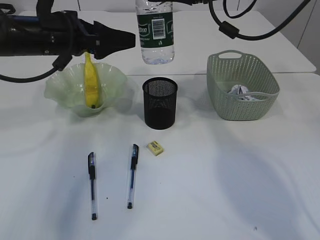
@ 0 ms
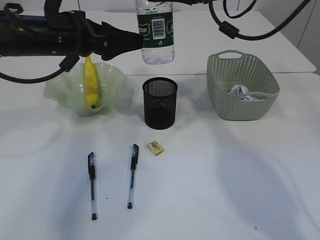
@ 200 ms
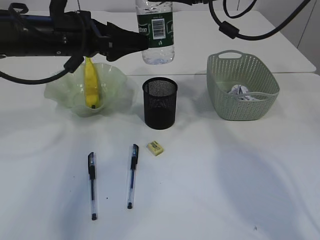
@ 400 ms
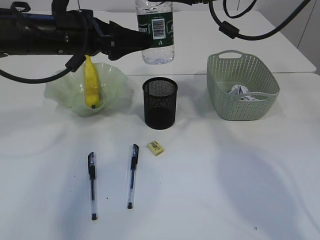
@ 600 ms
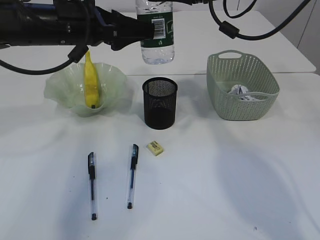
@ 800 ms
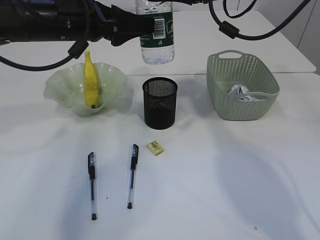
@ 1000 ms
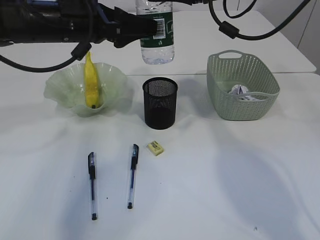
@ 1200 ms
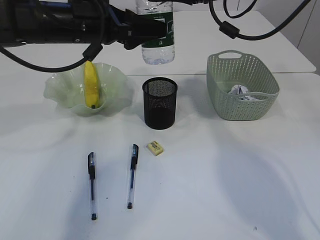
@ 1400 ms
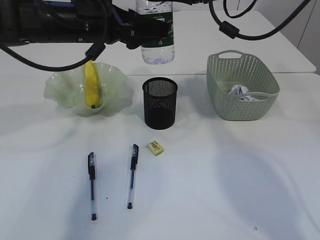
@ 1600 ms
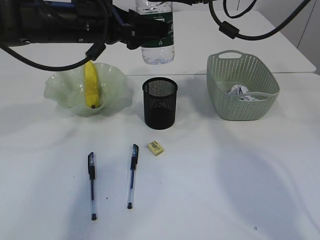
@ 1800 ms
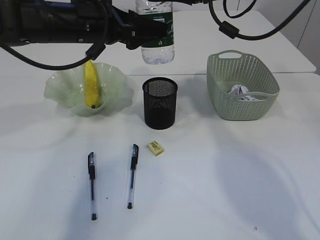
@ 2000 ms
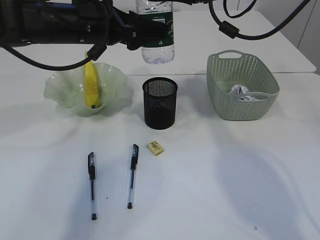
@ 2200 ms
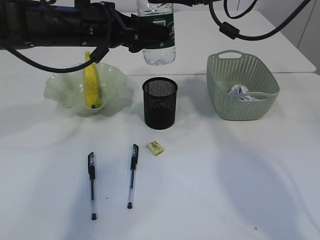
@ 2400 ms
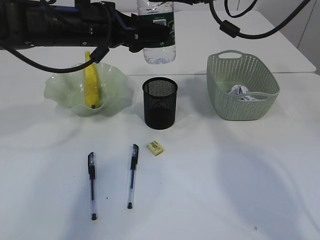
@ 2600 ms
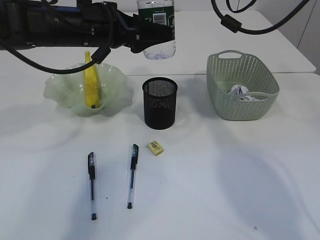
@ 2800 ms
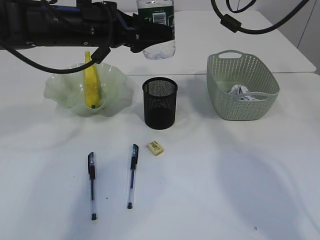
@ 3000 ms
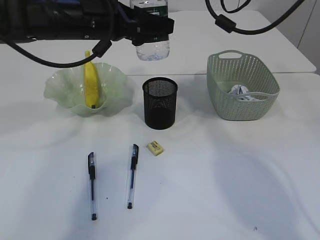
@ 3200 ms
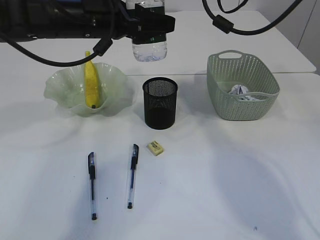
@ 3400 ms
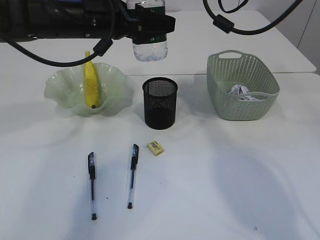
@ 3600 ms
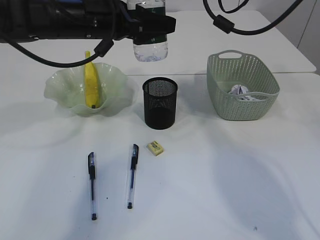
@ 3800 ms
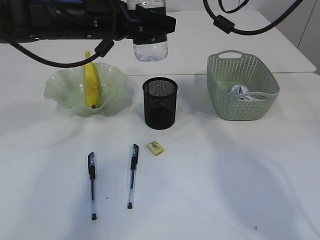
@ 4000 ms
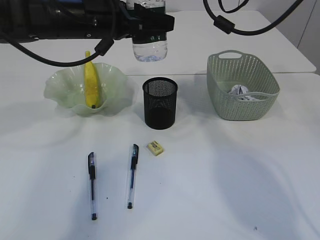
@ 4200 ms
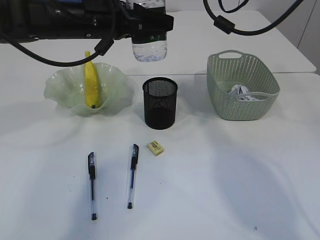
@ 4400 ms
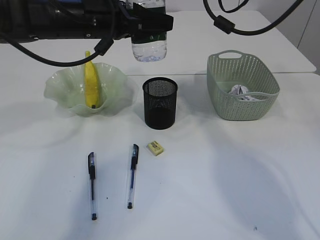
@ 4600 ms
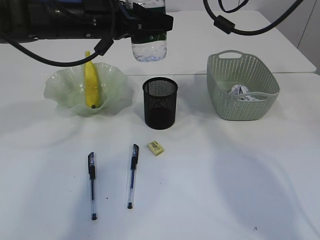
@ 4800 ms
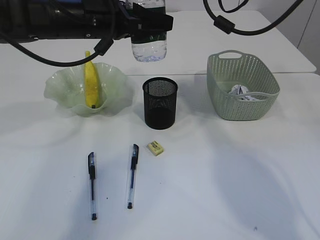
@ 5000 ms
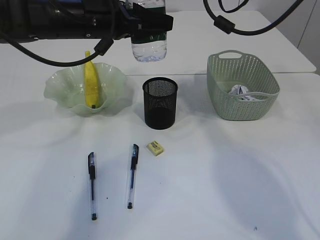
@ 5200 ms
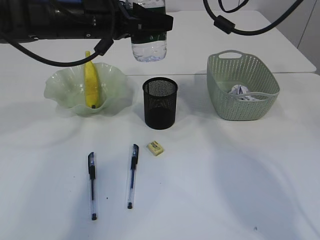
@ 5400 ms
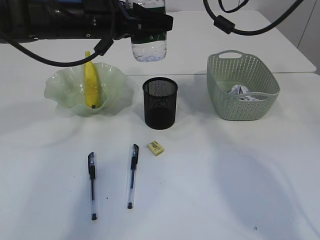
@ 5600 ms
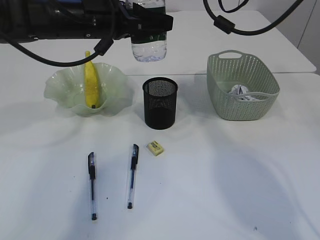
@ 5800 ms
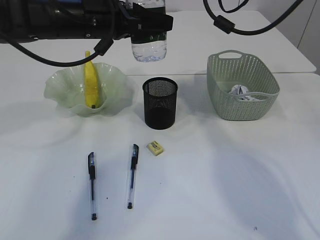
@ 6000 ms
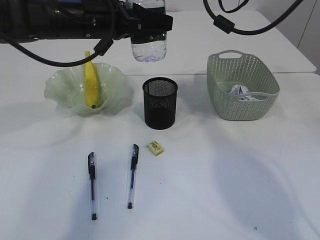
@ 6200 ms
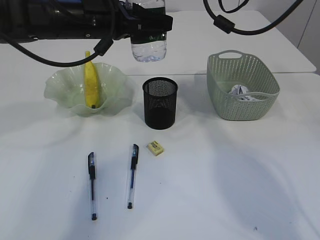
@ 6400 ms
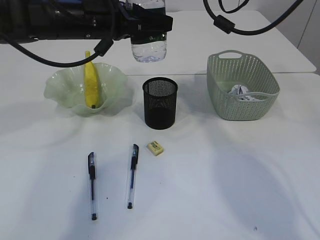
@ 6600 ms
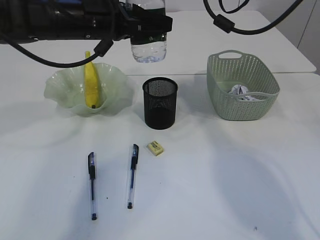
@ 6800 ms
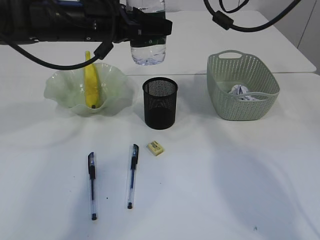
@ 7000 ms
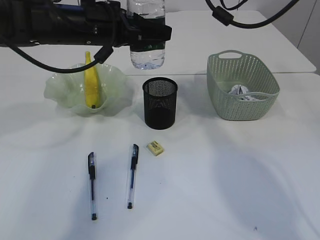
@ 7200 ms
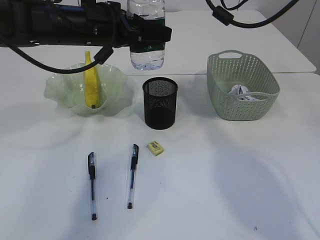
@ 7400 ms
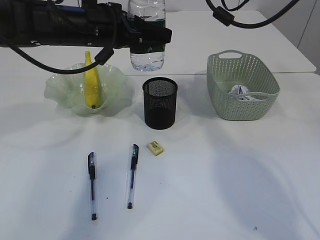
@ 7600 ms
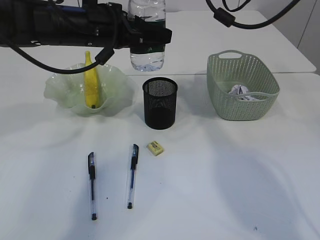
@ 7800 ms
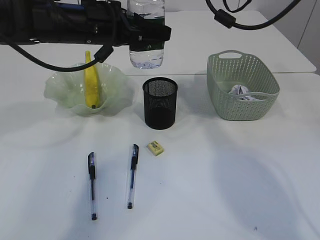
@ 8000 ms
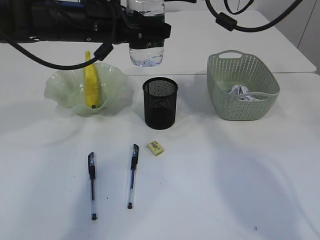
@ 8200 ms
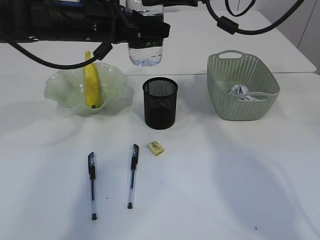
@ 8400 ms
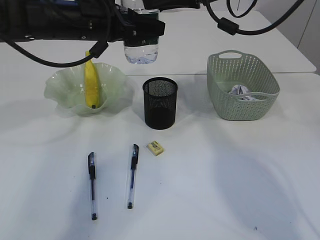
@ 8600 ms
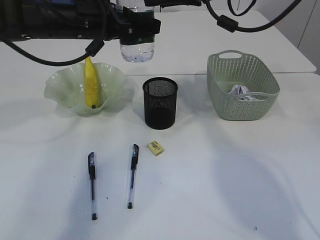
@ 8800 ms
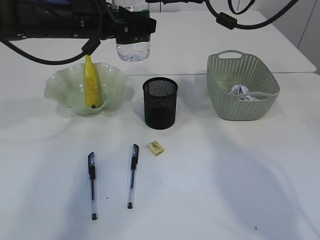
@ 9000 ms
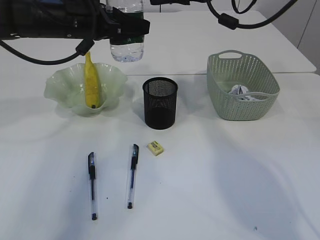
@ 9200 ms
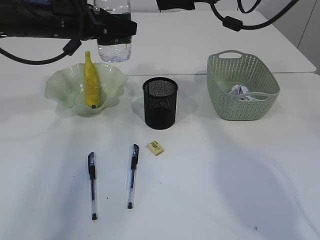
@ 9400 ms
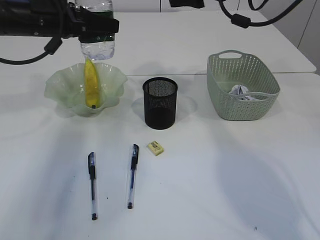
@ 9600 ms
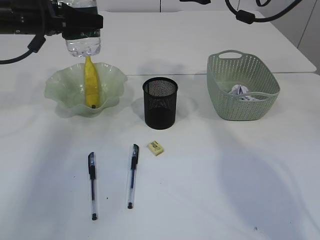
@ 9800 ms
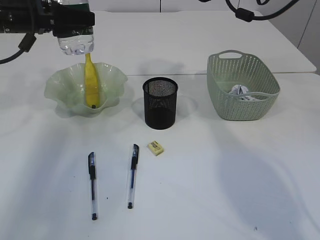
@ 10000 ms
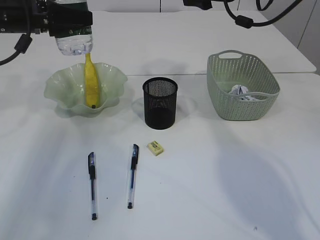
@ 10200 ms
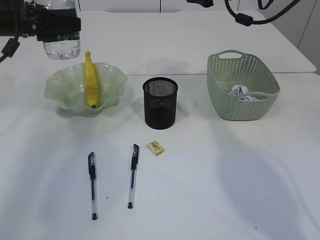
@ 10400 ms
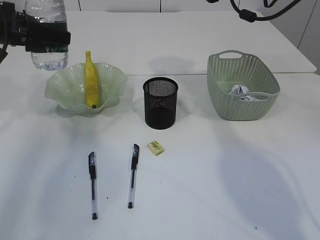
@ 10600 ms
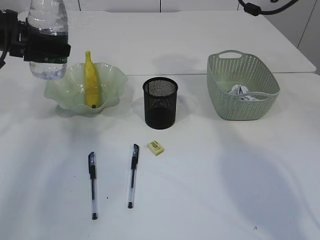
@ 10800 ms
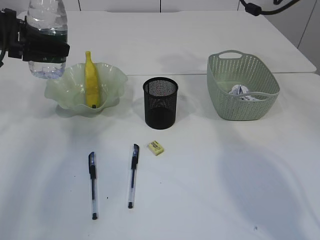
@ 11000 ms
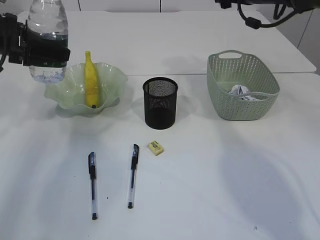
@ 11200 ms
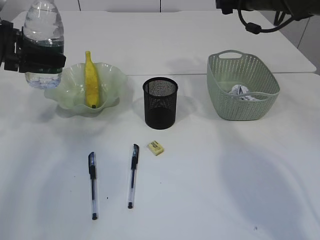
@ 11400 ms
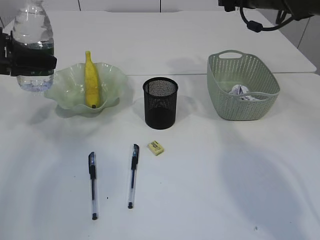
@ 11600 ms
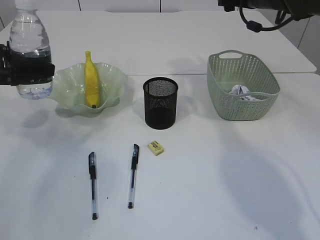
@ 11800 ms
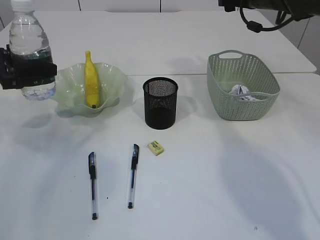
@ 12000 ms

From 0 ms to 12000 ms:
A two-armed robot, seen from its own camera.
Step, from 0 ms to 9200 ms: transfer the bottle to the left arm.
From 0 ms to 1600 ms: The left gripper heads to the right, covering approximately 5 cm.
From 1600 ms to 3000 ms: Both grippers stay about where they are.
From 3000 ms to 4400 ms: The grippers move only a little.
From 4400 ms to 6000 ms: Both grippers stay about where they are.
From 6000 ms to 7600 ms: The right gripper opens up.
From 7600 ms to 9000 ms: The grippers move only a little.
From 9000 ms to 10400 ms: The right gripper goes about 5 cm to the right and forward. Meanwhile the left gripper goes roughly 15 cm to the left.
From 10400 ms to 12000 ms: The left gripper is displaced downward and to the left by some 10 cm. The right gripper shifts by approximately 5 cm.

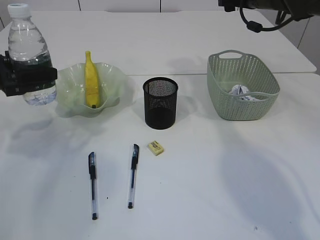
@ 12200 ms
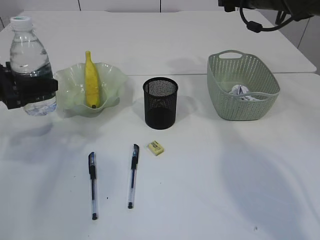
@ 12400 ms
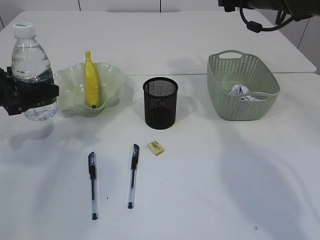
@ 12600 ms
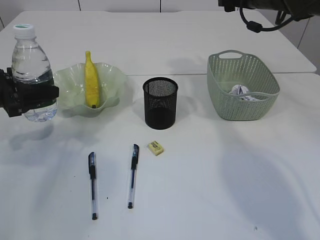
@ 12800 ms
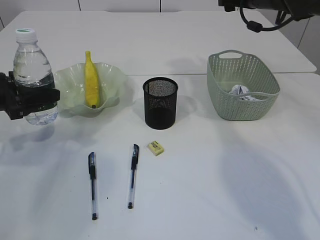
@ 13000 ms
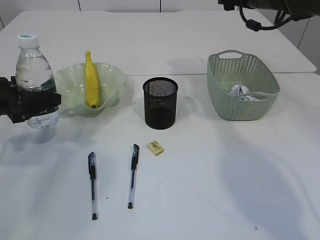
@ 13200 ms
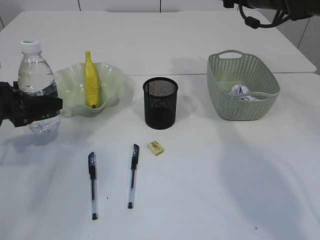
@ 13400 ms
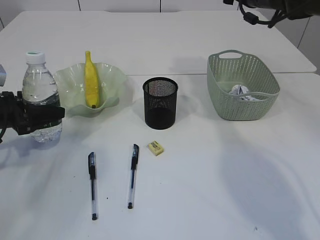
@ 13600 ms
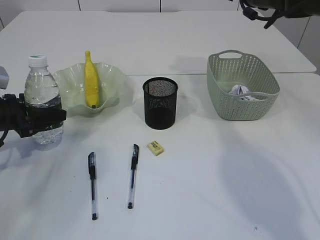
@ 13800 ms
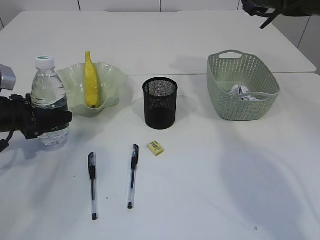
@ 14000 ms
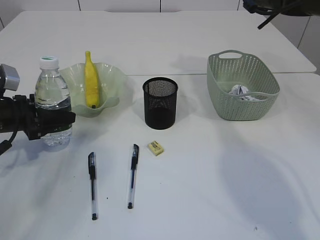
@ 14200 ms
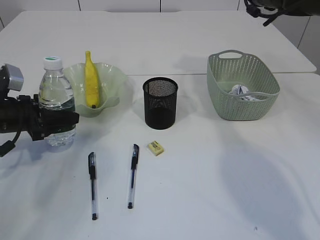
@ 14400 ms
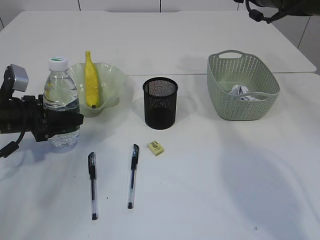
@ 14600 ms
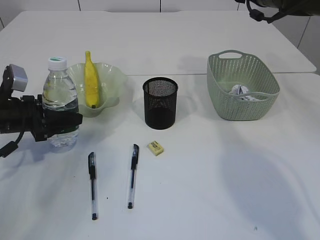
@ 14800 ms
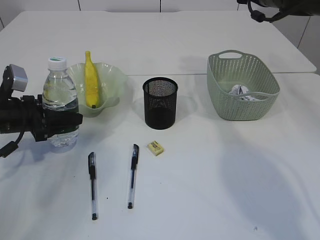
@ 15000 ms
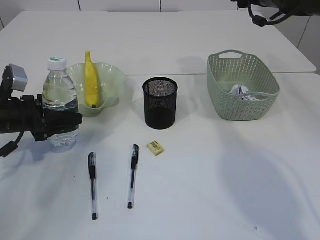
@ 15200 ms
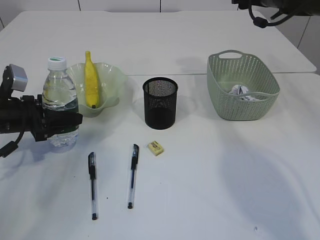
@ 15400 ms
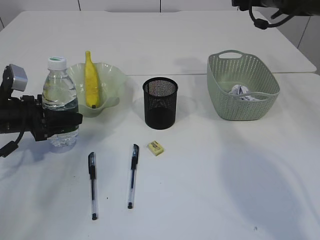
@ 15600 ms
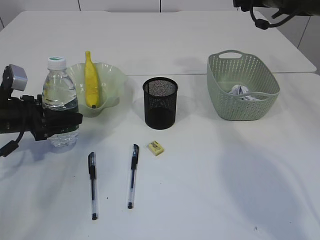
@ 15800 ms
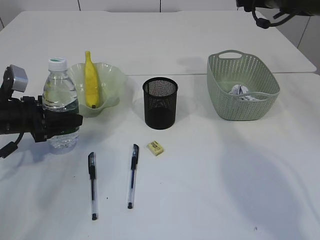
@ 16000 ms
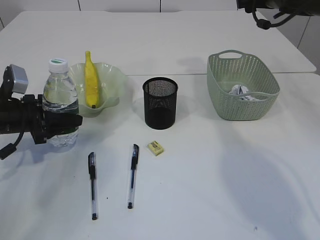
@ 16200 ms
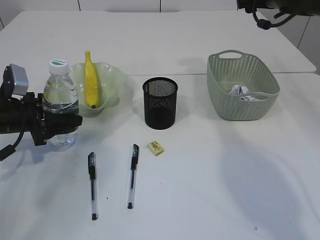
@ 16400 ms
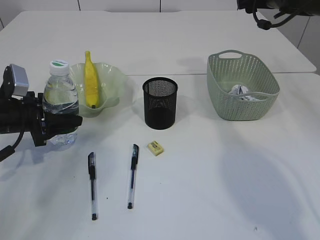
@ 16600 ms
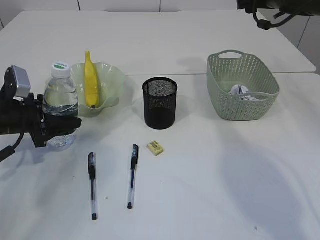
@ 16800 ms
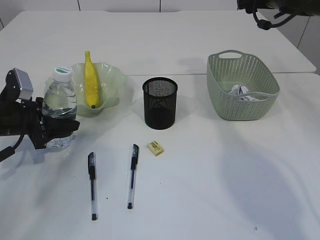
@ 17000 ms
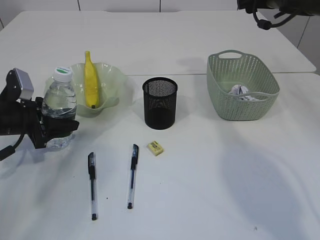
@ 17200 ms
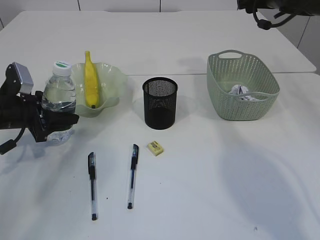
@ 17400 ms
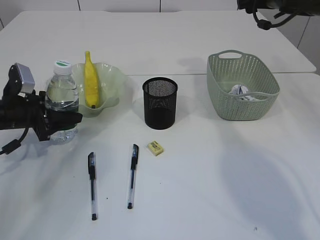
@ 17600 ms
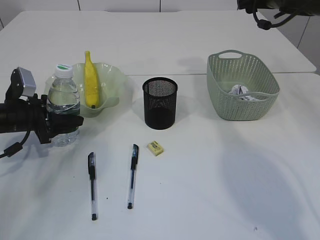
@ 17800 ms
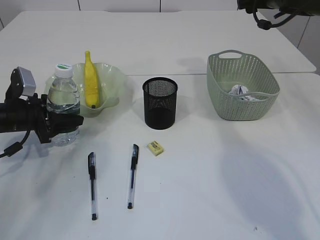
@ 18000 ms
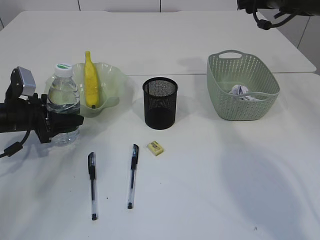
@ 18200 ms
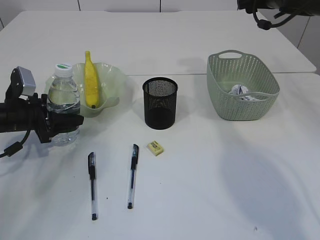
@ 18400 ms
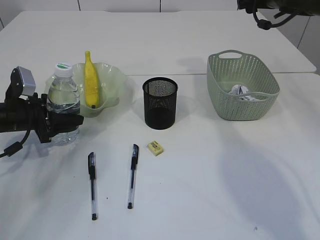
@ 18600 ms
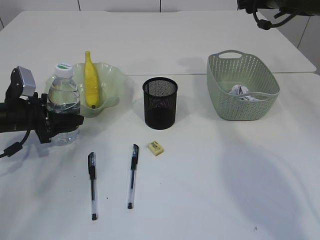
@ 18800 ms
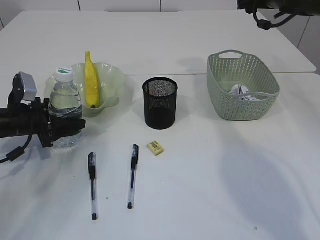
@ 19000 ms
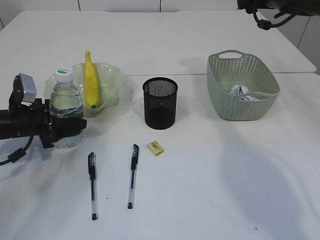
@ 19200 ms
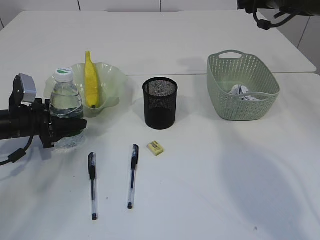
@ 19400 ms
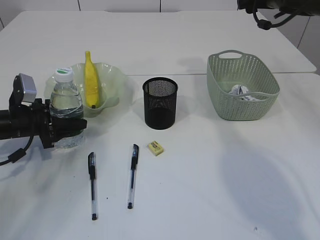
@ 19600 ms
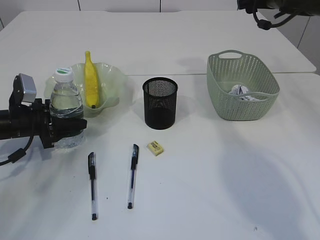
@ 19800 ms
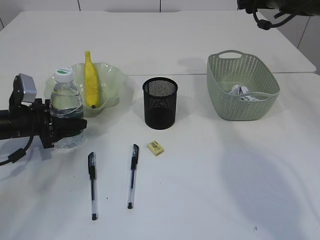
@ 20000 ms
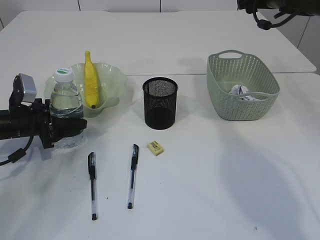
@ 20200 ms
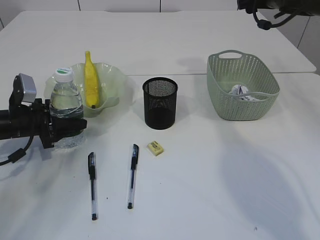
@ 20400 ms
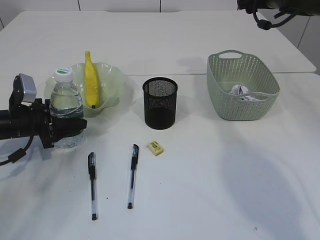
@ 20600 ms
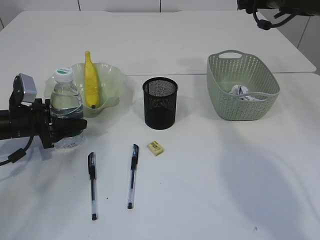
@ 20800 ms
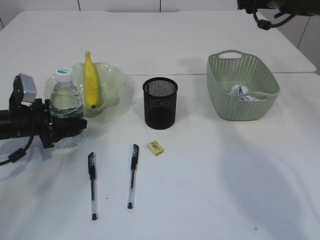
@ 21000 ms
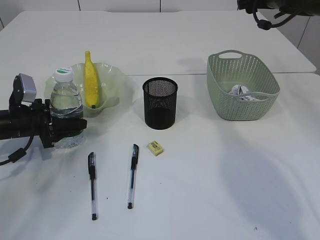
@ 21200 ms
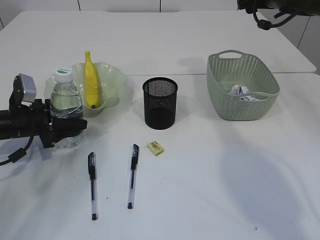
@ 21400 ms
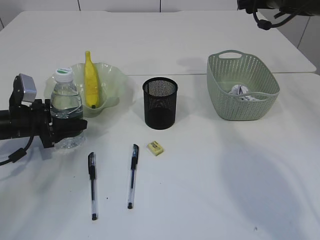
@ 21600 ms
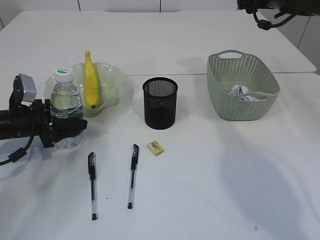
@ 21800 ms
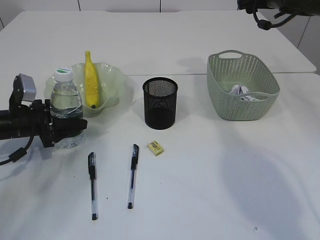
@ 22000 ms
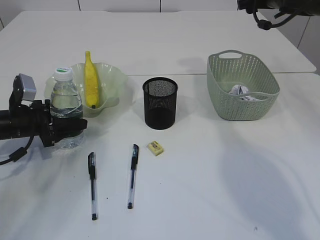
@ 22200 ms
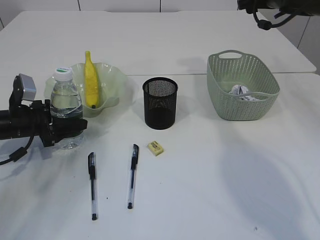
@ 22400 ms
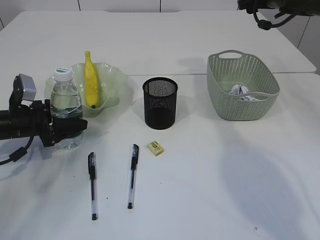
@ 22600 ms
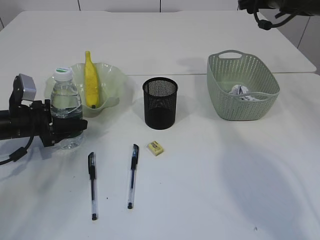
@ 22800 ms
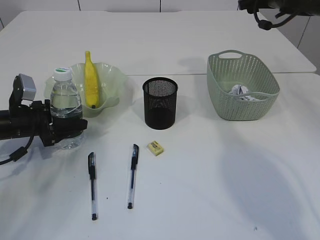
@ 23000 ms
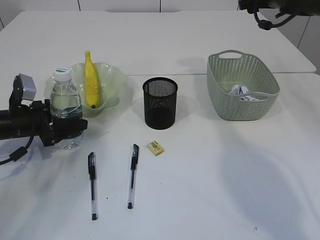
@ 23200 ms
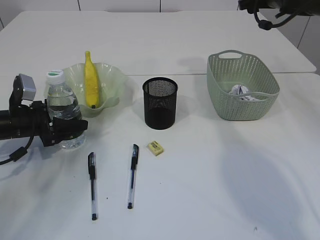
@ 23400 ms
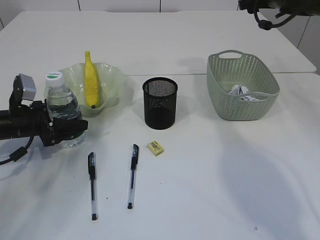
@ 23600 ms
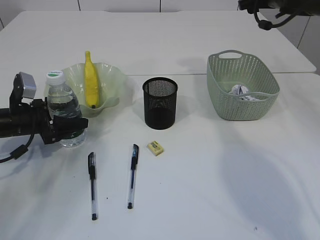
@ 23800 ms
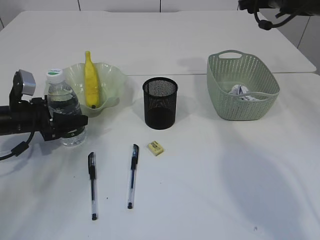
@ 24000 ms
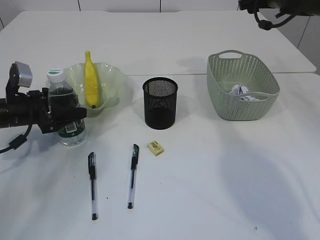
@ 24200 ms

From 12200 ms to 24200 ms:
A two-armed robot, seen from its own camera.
From 12200 ms to 13800 ms: The left gripper travels downward by about 10 cm.
From 15200 ms to 19800 ms: The grippers stay close to where they were, moving slightly.
From 19800 ms to 22600 ms: Both grippers stay about where they are.
From 22600 ms to 24200 ms: The grippers make only small movements.
